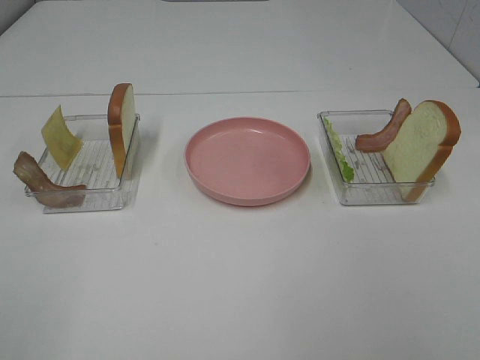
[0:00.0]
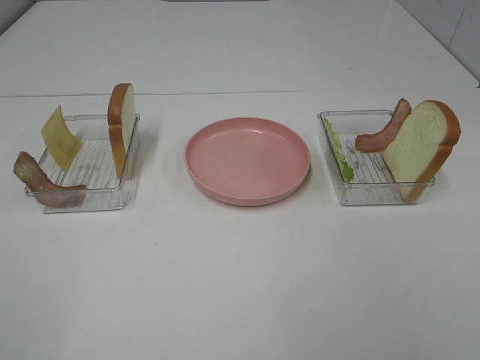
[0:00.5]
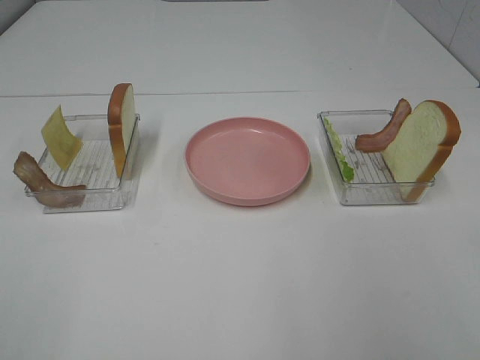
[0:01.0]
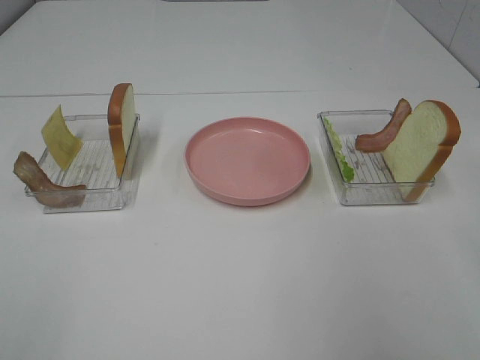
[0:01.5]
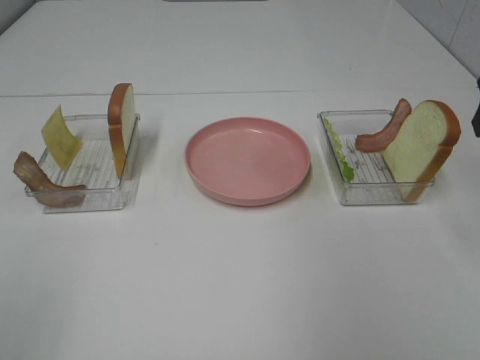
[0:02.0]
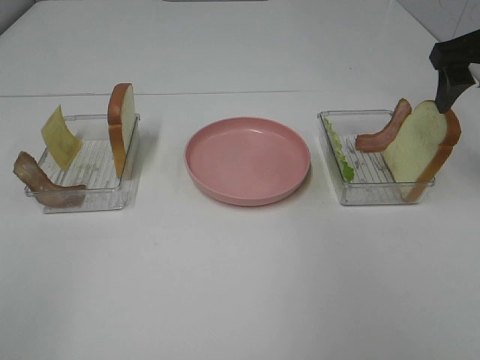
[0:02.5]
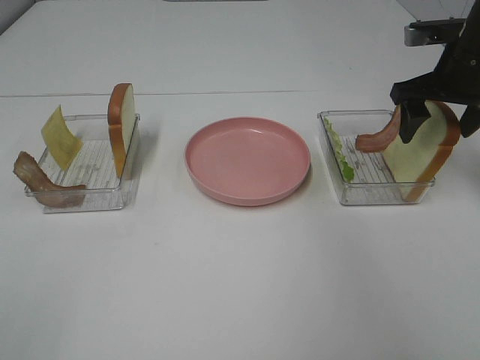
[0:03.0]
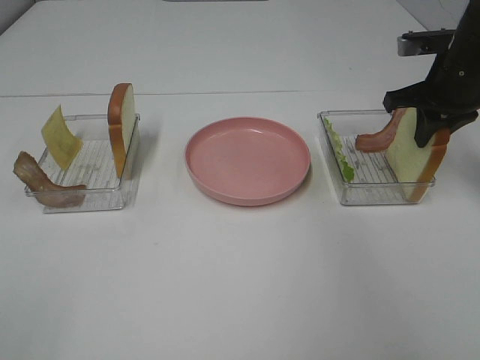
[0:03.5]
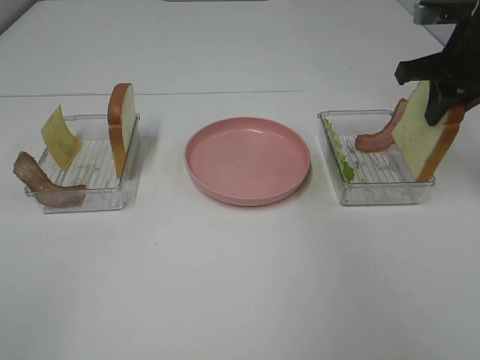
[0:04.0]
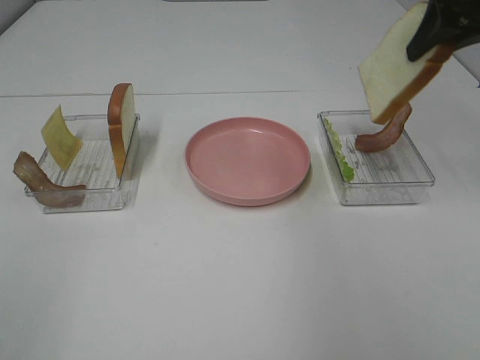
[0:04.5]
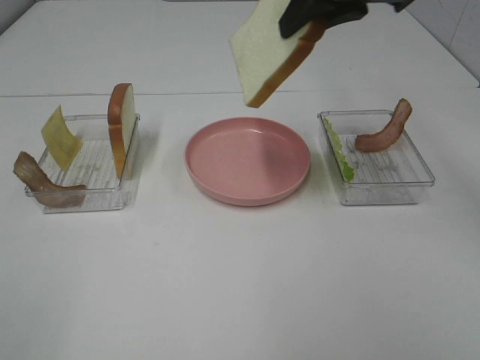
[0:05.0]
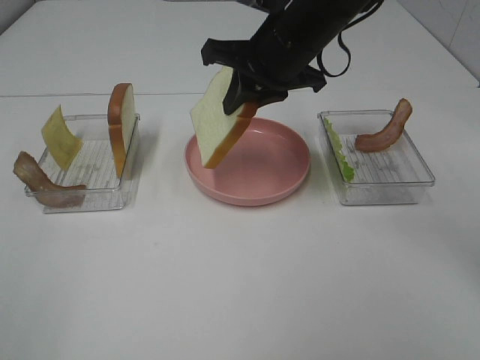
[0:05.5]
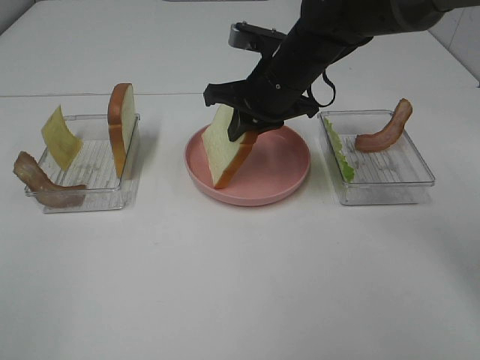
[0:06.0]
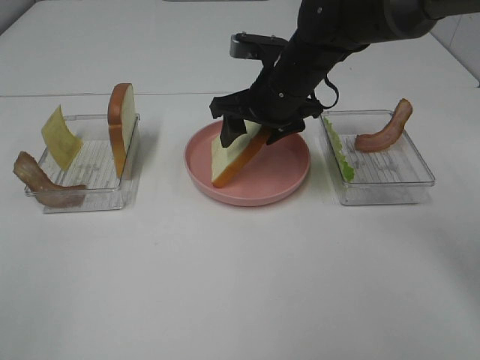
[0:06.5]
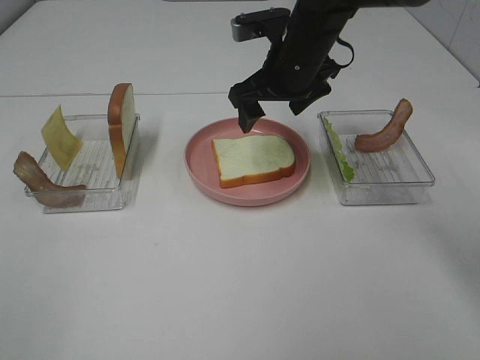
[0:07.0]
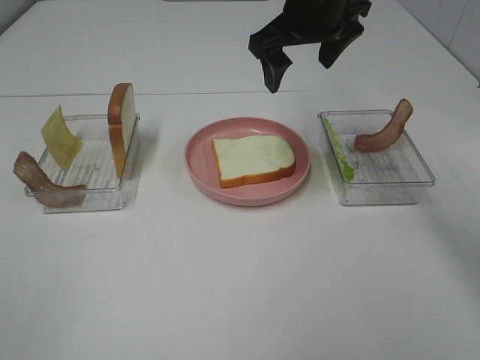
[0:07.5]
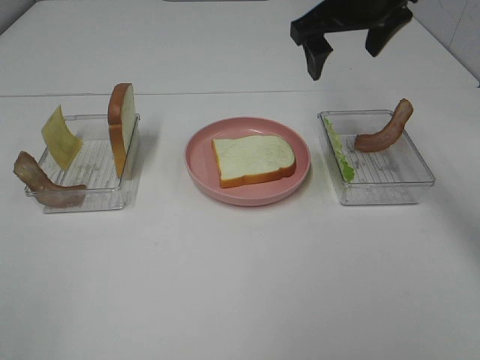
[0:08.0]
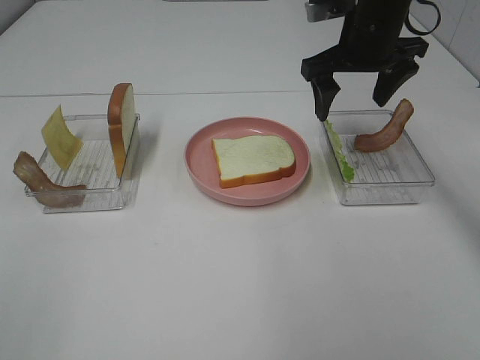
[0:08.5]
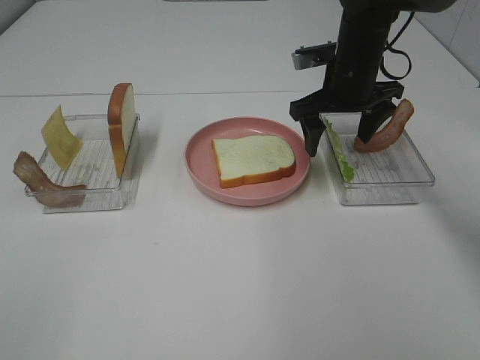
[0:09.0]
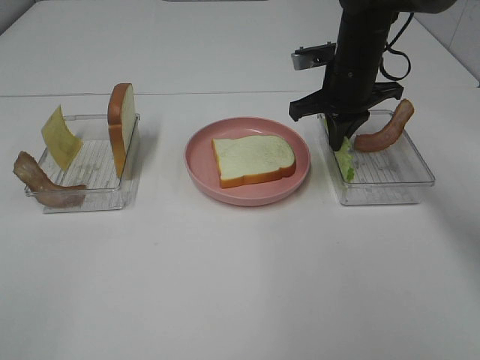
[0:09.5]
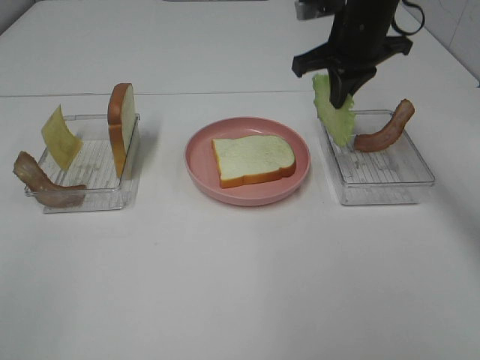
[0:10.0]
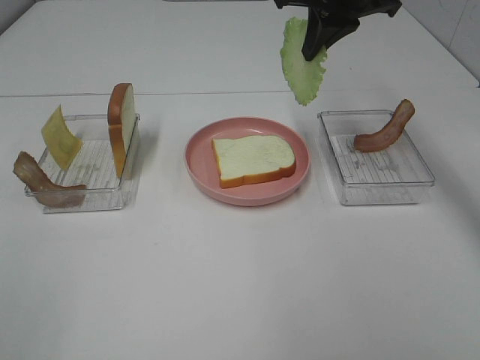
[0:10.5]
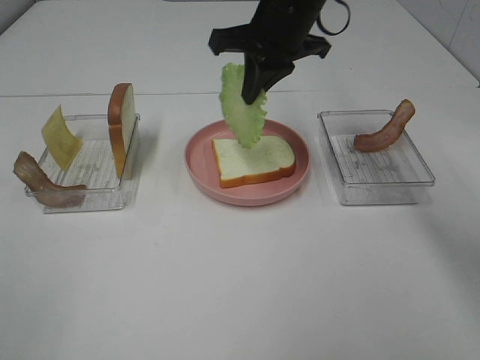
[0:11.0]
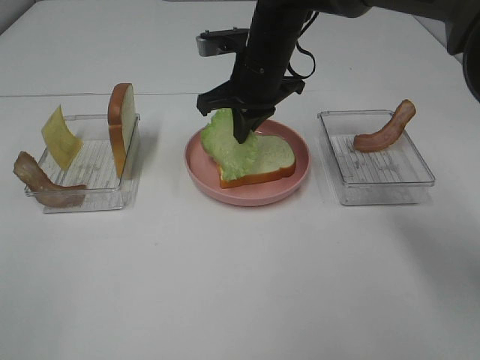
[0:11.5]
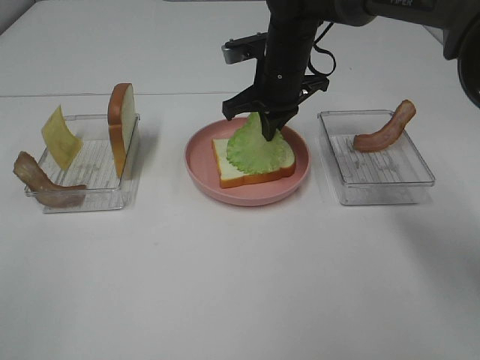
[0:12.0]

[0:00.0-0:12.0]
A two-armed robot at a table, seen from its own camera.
Task of the whole recording: Make sandwiches.
Step, 0:00.0 to 0:03.5: Right hand:grab the bread slice.
Step, 0:04.0 to 0:07.0: Right hand:place the bread slice on the plate.
Step, 0:07.5 to 0:09.5: Right hand:grab the lettuce slice.
0:02.0 to 0:04.0: The right gripper travels forward by approximately 10 cm, and closes its fingers.
0:04.0 to 0:06.0: The right gripper travels to the left by roughly 20 cm.
0:06.0 to 0:08.0: The right gripper travels upward and to the right by roughly 15 cm, and opens up.
0:08.0 to 0:10.0: The right gripper closes its fingers.
0:10.0 to 0:12.0: The right gripper moves to the left and downward, some 10 cm.

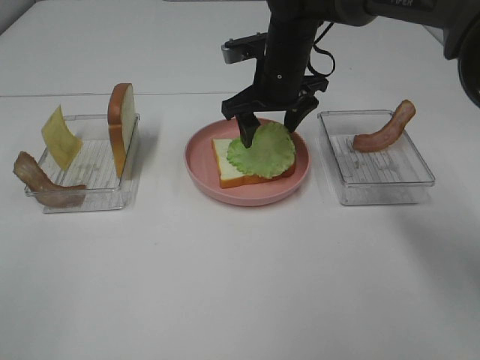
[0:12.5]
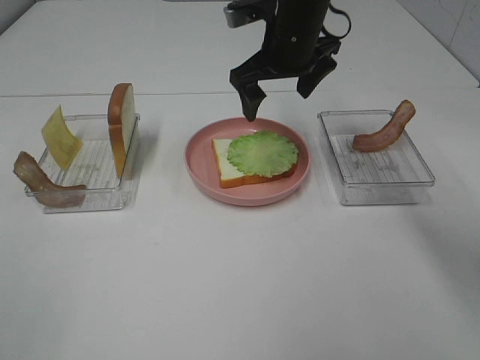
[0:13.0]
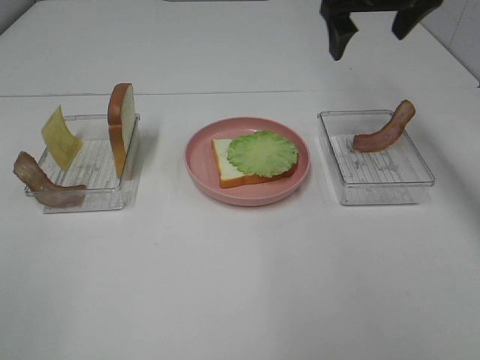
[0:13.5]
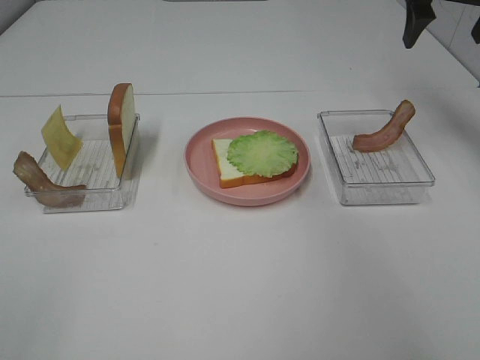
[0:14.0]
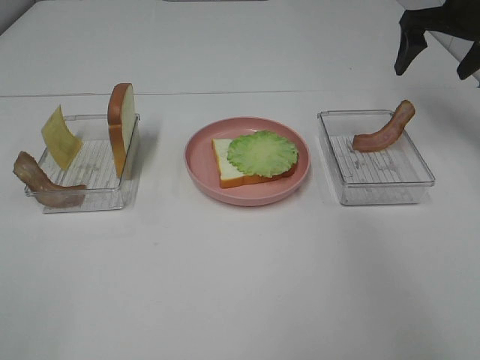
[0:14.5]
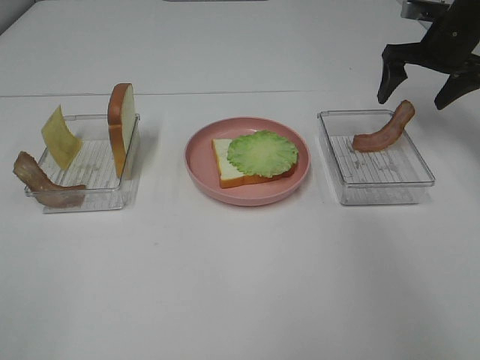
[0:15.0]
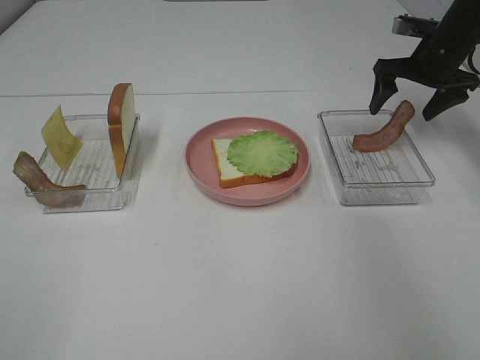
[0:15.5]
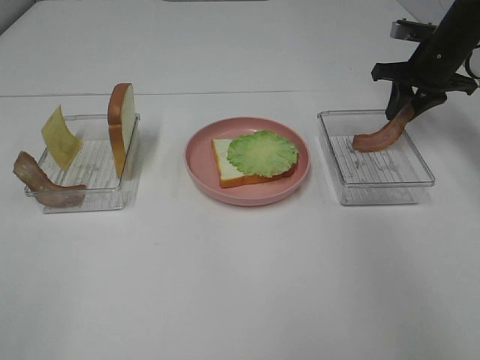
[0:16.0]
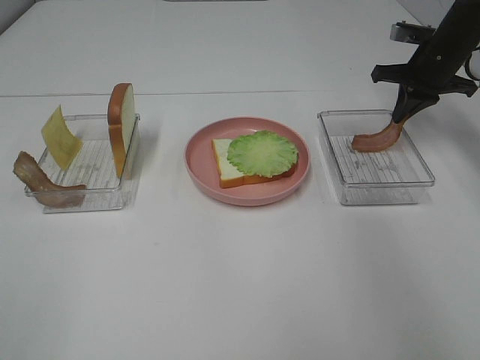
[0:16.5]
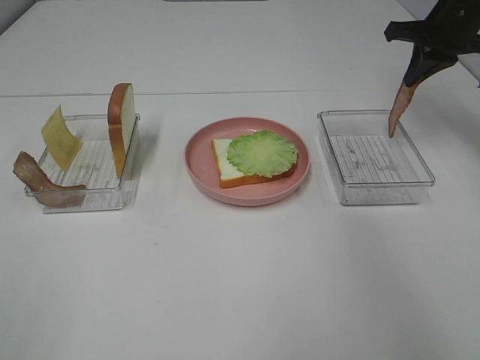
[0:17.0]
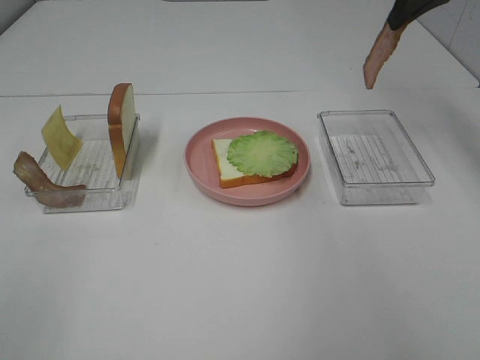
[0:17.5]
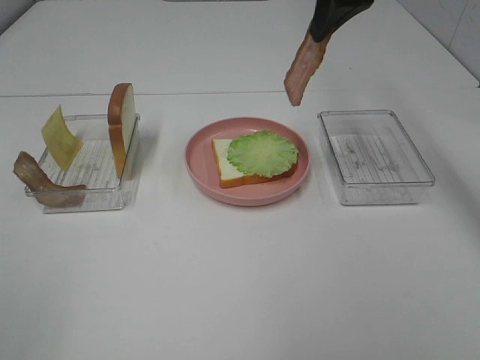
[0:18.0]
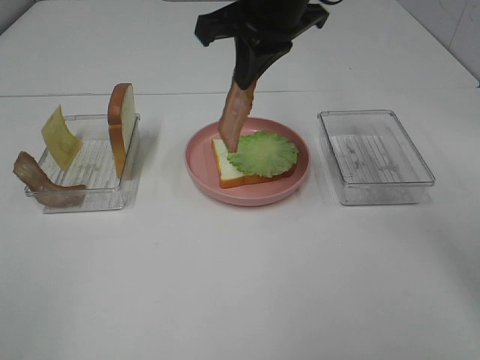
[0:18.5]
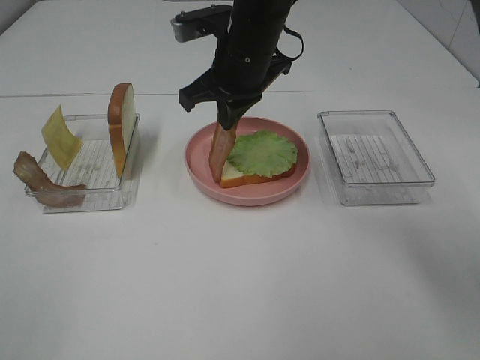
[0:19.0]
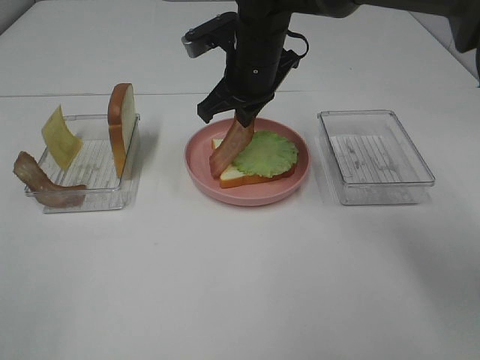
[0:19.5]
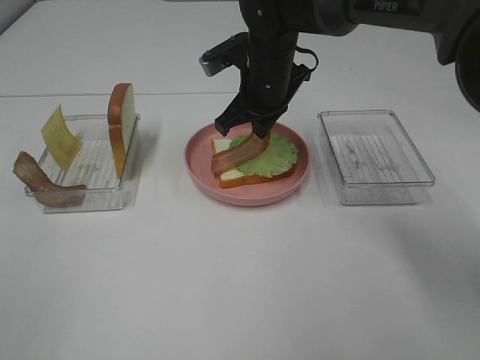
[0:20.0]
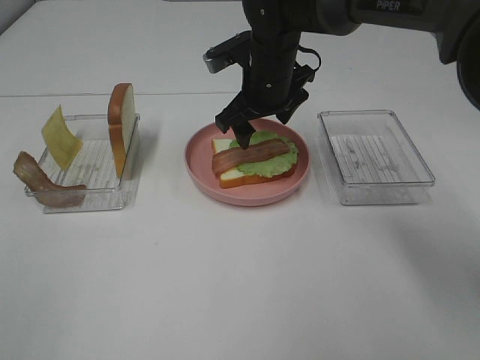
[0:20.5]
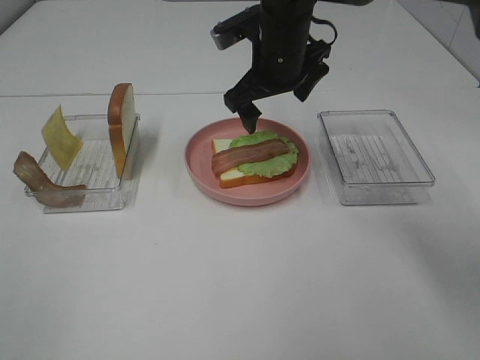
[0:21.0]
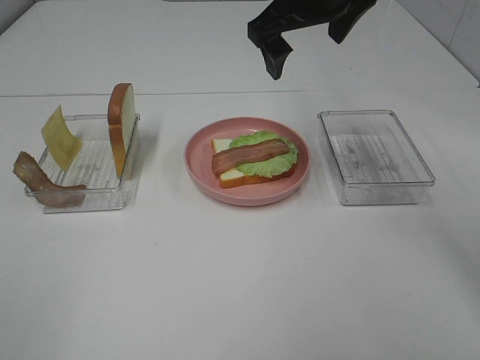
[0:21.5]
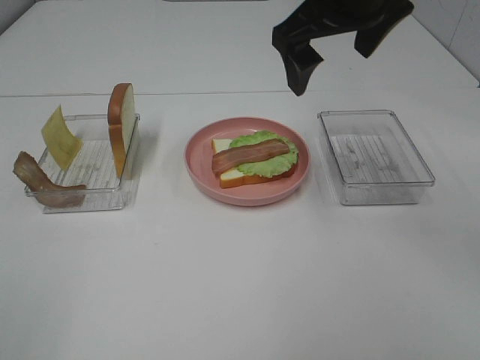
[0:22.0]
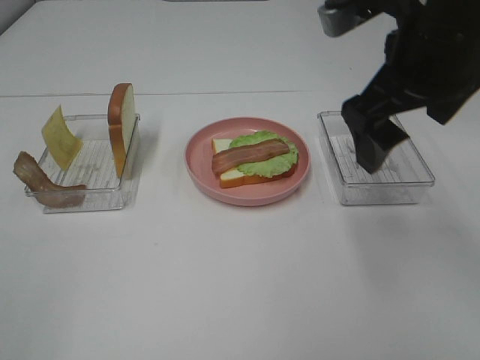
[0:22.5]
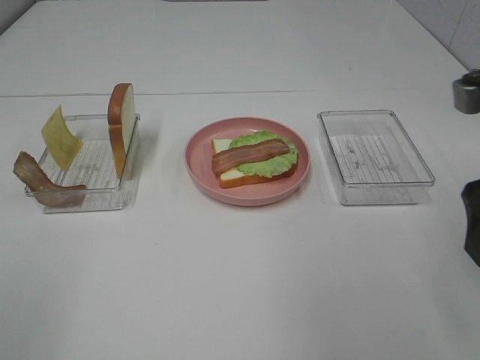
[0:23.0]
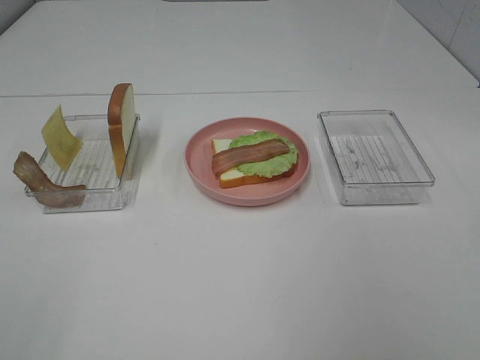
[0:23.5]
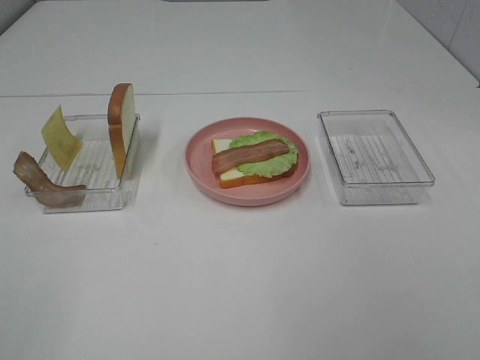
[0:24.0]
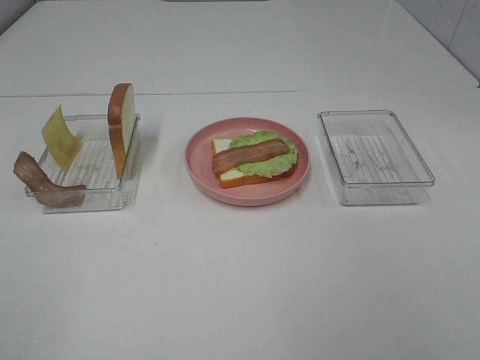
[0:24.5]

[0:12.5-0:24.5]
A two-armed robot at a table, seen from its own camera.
Task of the whole recording: Make sandwiches.
Step, 0:13.0 to 0:16.5: Right hand:grab the bacon.
Step, 0:17.0 to 0:21.0: Right hand:place bacon on lettuce slice.
0:12.5 to 0:14.5: The right gripper is displaced to the right by approximately 25 cm.
0:14.5 to 0:16.5: The right gripper is displaced downward by about 10 cm, and closes.
0:16.5 to 0:18.5: The right gripper moves to the left, upward and backward, about 30 cm.
0:18.5 to 0:20.5: The right gripper goes about 15 cm downward and forward, and opens up.
0:20.5 to 0:22.5: The right gripper goes roughly 25 cm backward, upward and to the right.
0:22.5 to 0:24.5: The right gripper travels backward and to the right by approximately 30 cm.

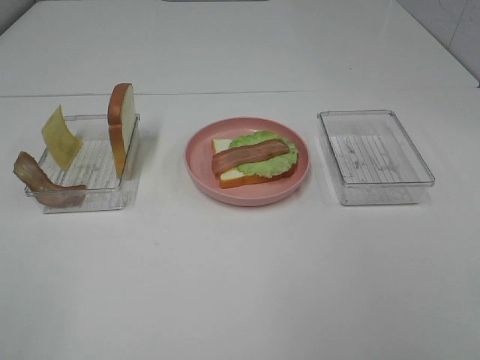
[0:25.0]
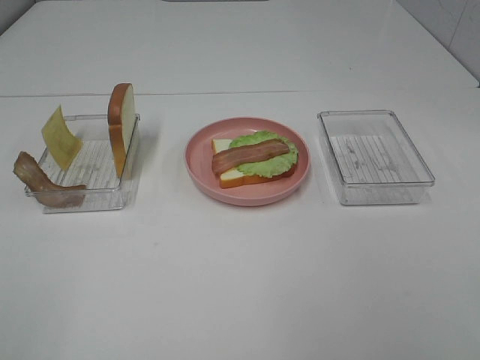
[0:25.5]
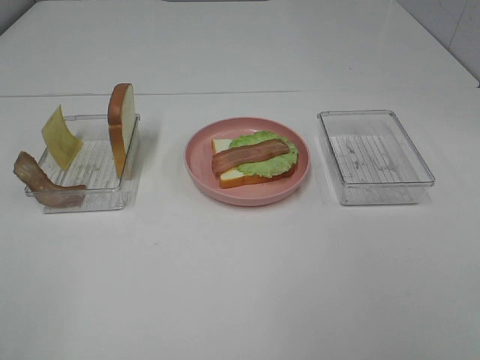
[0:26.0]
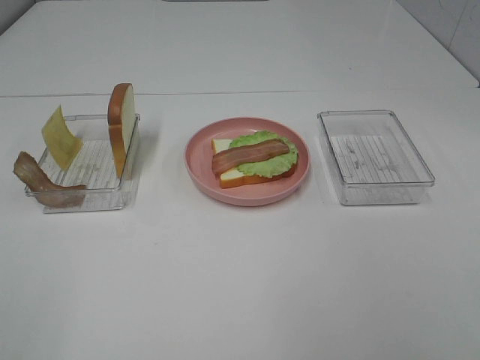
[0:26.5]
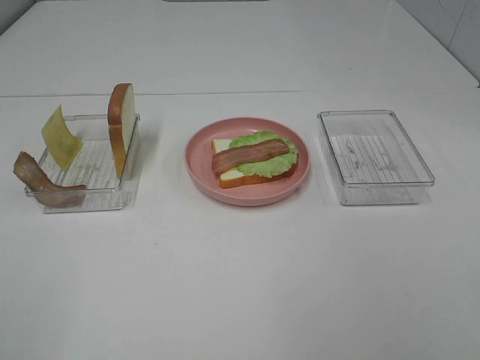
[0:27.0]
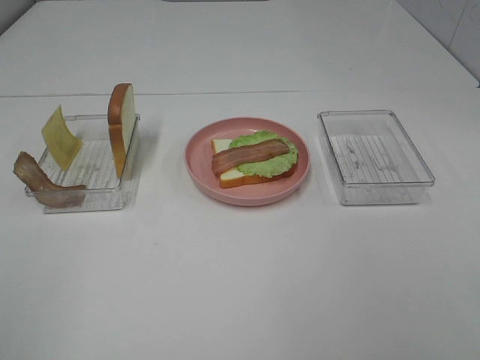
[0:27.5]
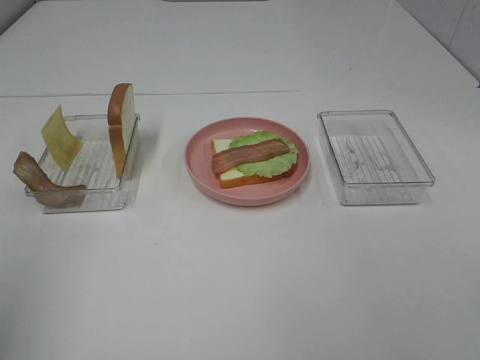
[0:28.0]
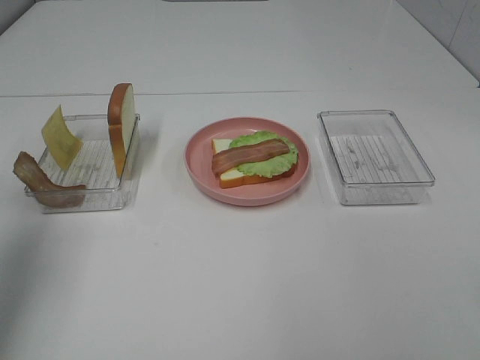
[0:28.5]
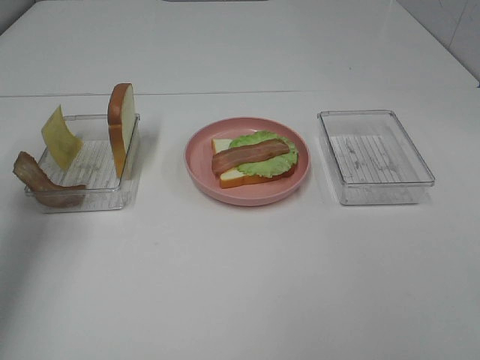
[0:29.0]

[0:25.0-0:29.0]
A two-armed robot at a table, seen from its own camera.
Task of the whole recording: Make sandwiches.
0:25.0 to 0:27.0: Neither gripper changes place.
0:27.0 to 0:29.0: The left gripper is displaced forward by roughly 30 cm.
